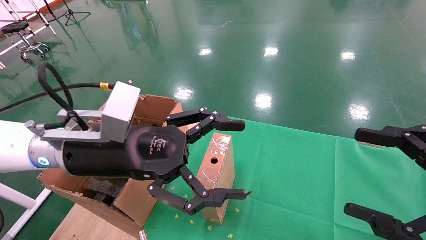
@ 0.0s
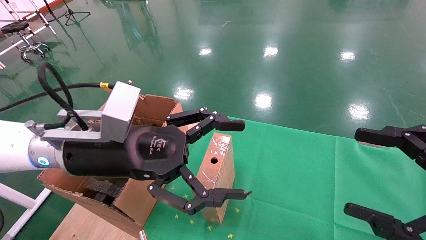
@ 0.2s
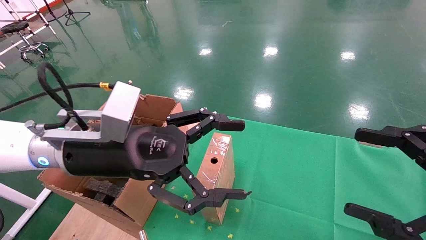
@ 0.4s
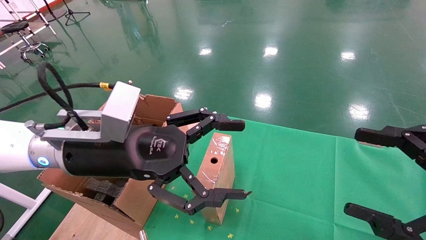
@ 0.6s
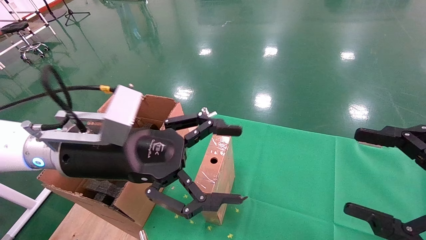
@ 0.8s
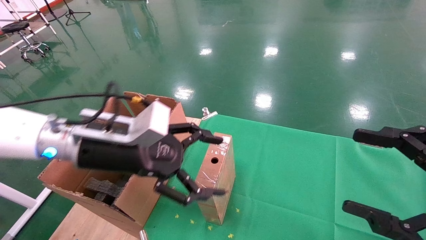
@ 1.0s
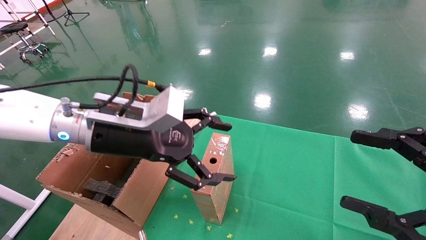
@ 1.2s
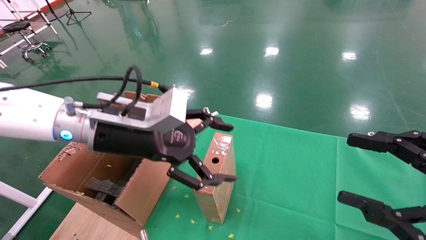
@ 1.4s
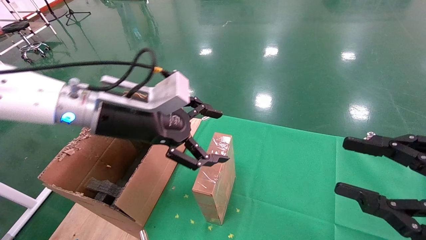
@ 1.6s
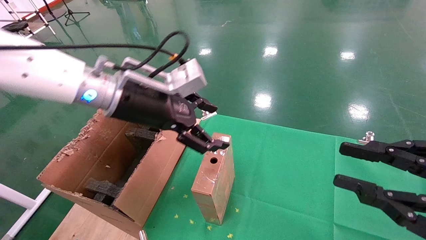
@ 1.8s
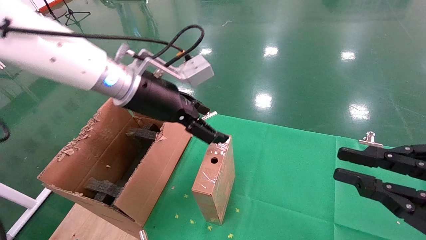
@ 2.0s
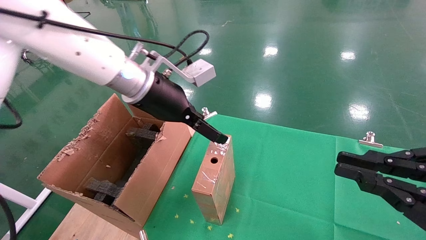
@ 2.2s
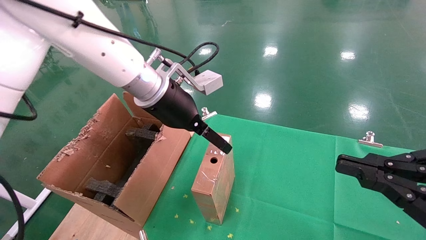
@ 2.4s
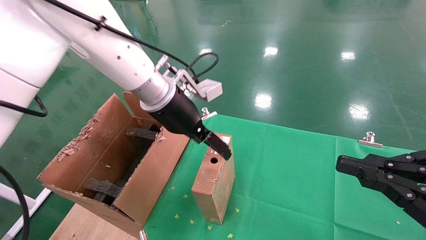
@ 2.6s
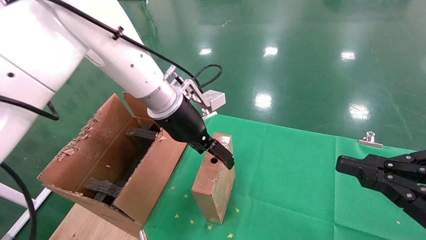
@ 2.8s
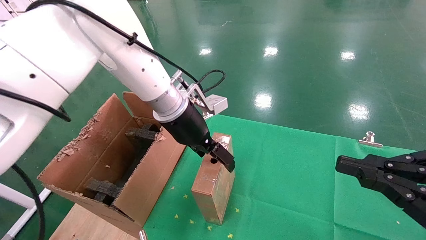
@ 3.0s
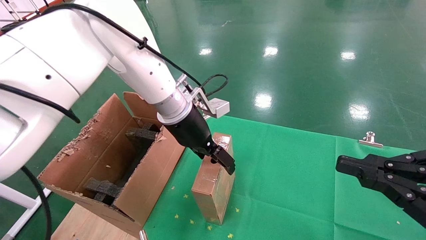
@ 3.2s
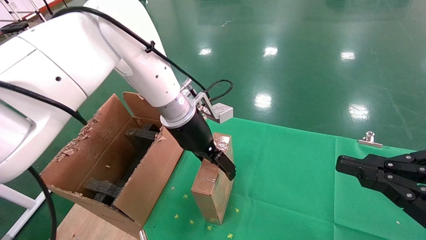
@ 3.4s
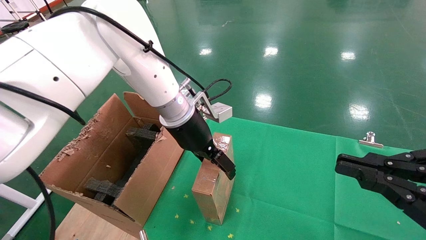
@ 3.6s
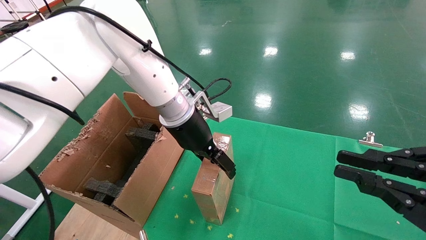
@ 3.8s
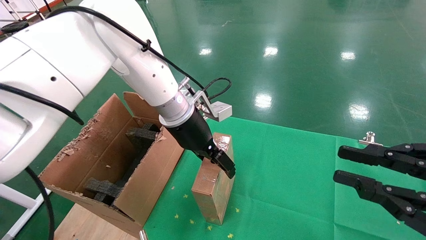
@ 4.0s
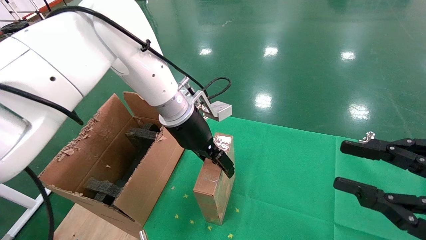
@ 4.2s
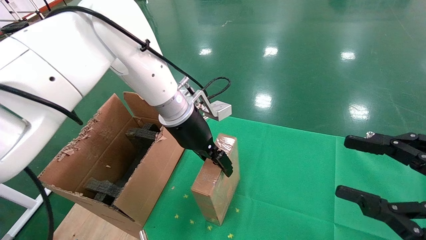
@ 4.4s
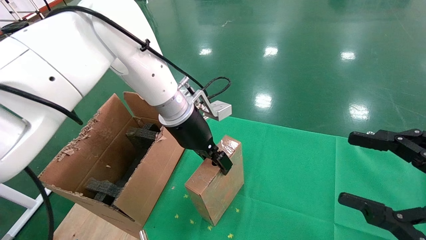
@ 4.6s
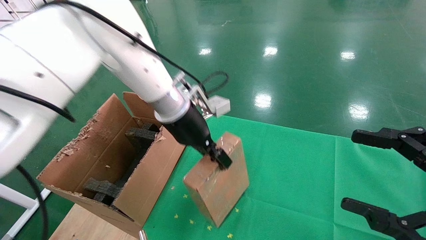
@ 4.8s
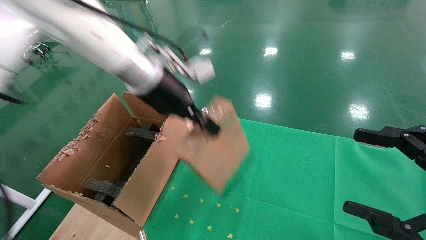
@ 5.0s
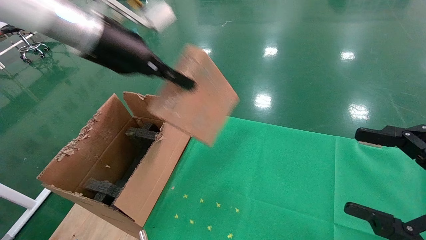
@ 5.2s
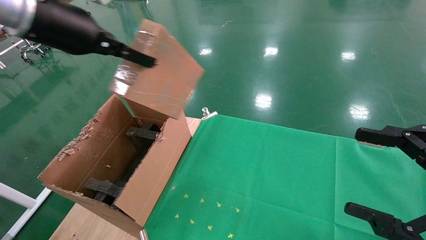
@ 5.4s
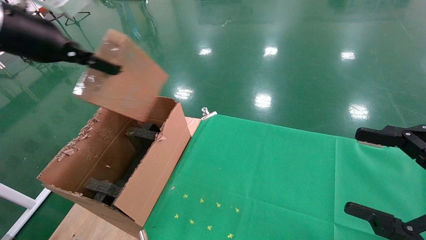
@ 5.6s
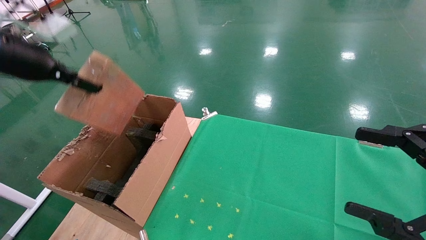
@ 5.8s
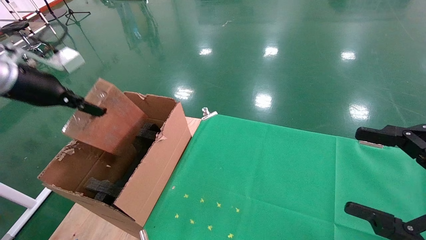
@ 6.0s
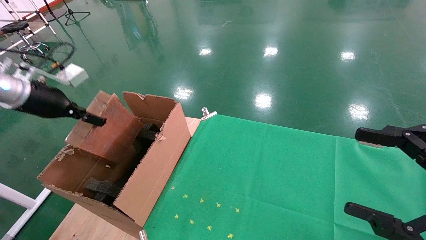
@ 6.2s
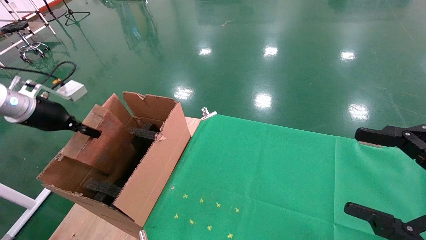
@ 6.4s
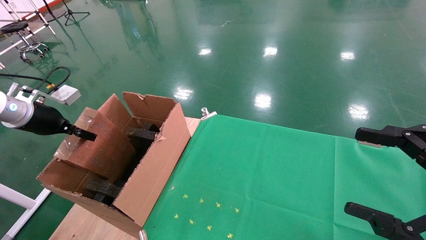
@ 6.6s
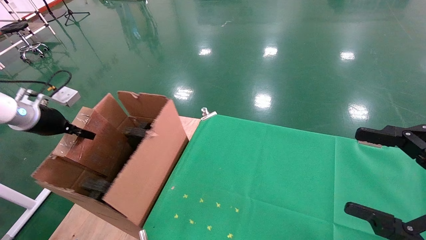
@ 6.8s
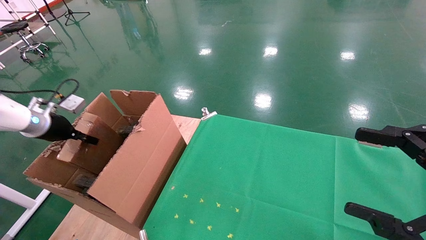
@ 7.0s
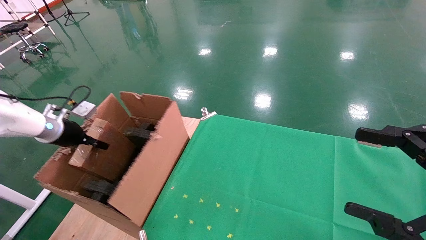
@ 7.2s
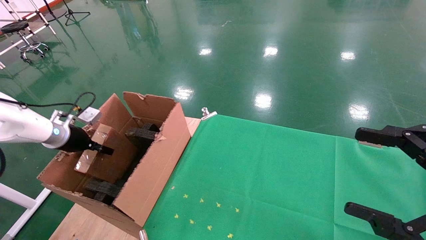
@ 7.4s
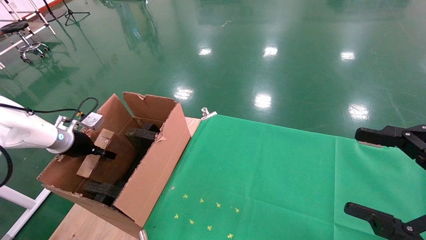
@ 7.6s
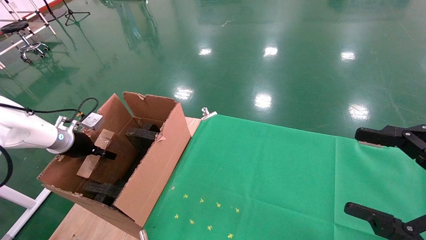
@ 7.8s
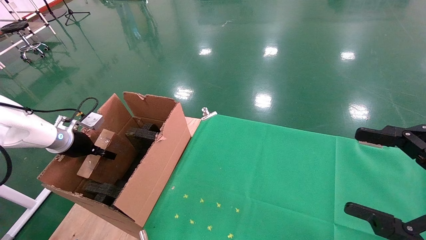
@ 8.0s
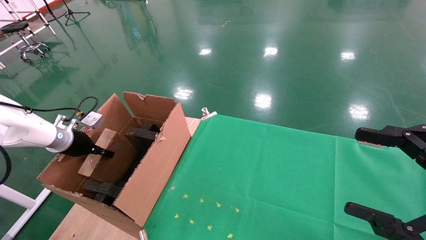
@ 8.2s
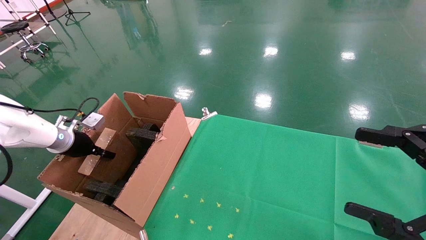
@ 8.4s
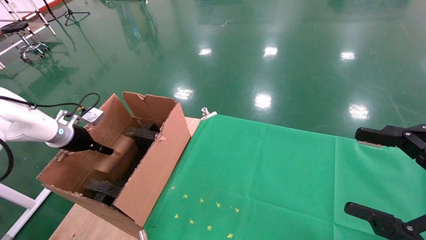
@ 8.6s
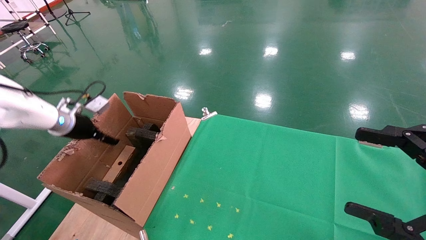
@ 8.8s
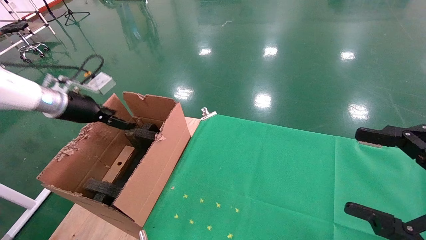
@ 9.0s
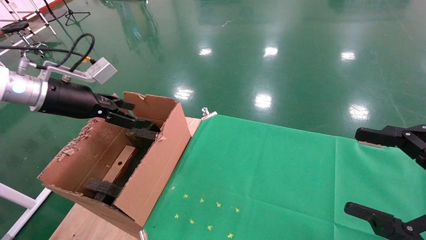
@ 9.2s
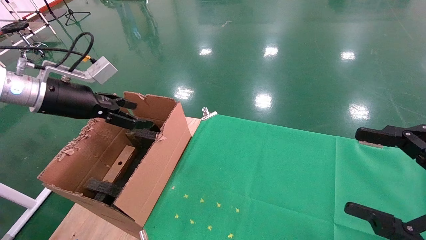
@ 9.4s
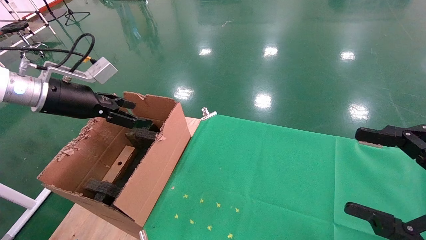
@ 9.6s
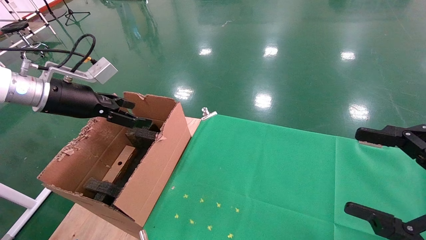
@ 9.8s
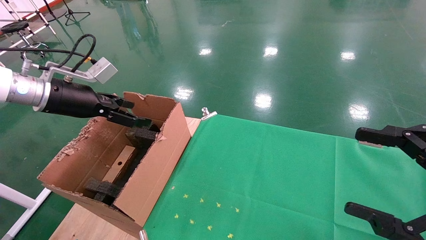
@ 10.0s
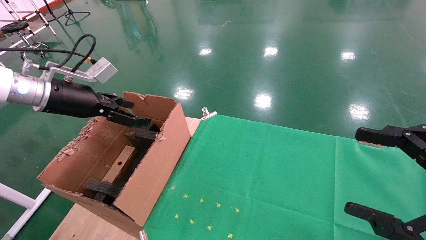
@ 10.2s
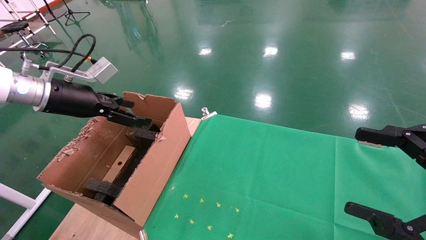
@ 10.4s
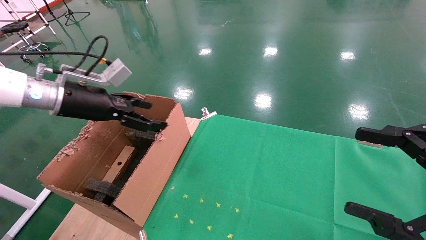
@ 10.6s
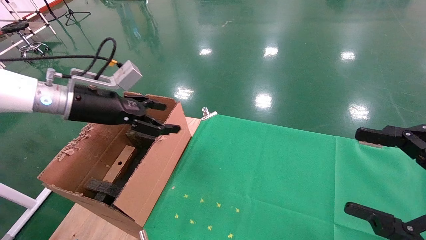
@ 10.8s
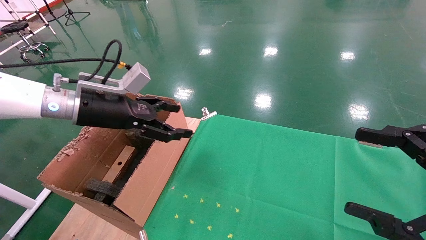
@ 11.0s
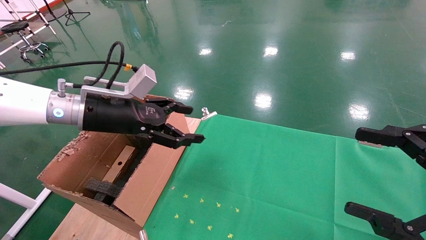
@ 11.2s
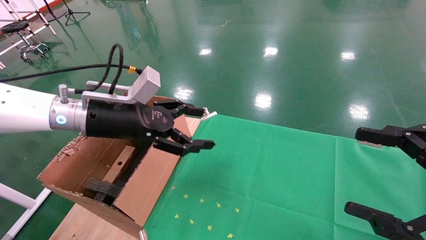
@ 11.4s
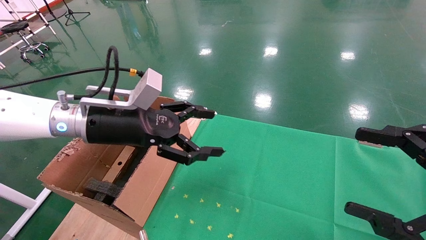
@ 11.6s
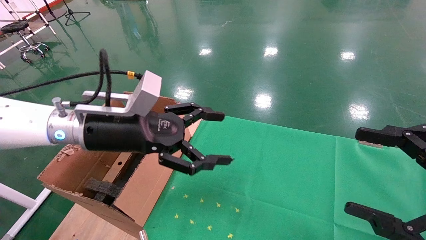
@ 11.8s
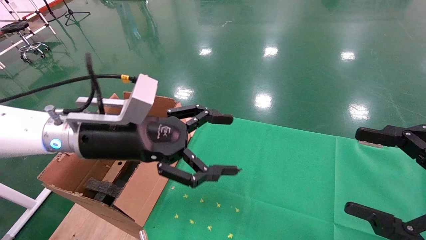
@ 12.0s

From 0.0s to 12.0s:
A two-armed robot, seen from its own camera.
Task of the whole recording: using a robotic arm to pick up a cardboard box and palace it the carton.
Step, from 1.2s to 4.6s: Pick up the mouse and the power cord paper box.
Step, from 4.8s to 8.4s: Place the mouse and the power cord paper box into the container.
From 0.0s to 1.6s: The left gripper shifts about 5 cm forward, while the right gripper closes up.
From 1.6s to 3.0s: The left gripper shifts approximately 10 cm forward and to the right. The right gripper closes up.
From 3.0s to 4.4s: The right gripper opens its fingers; the left gripper closes its fingers.
From 4.4s to 6.0s: The right gripper opens up, while the left gripper is displaced to the left by some 30 cm, and closes up.
From 6.0s to 7.6s: The left gripper travels downward and forward by about 20 cm.
From 7.6s to 9.0s: The left gripper is displaced upward by about 10 cm, and opens its fingers.
From 9.0s to 10.4s: The left gripper travels to the right and backward by roughly 5 cm.
From 10.4s to 12.0s: The left gripper shifts roughly 20 cm to the right and backward.

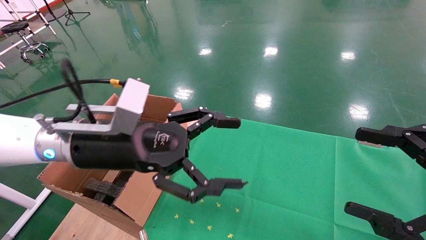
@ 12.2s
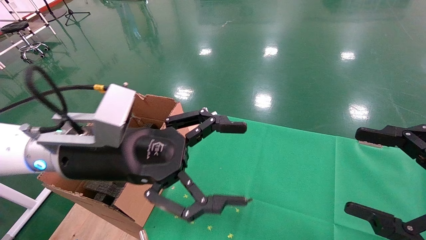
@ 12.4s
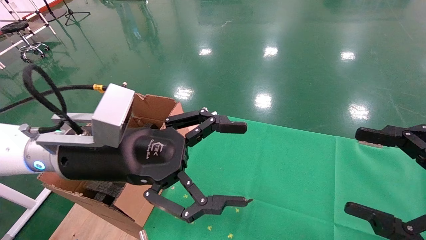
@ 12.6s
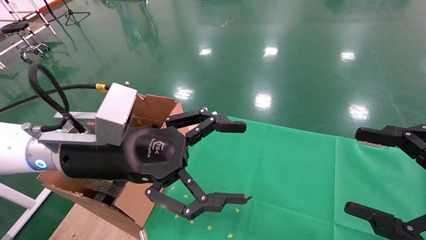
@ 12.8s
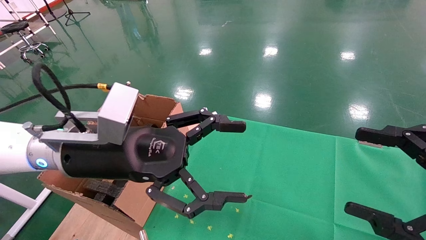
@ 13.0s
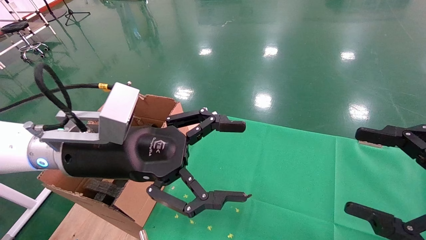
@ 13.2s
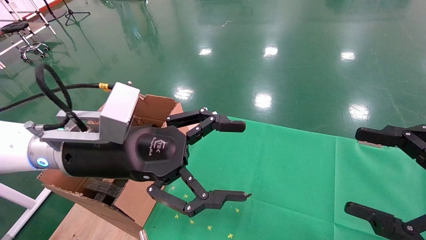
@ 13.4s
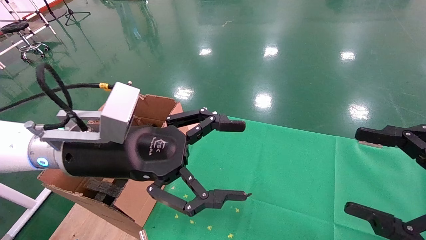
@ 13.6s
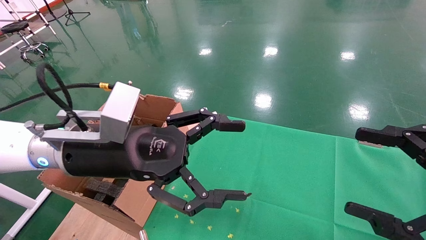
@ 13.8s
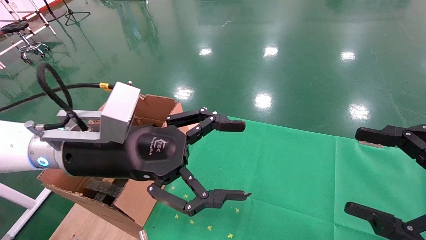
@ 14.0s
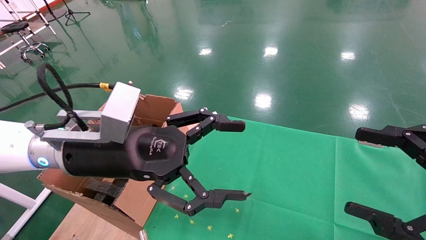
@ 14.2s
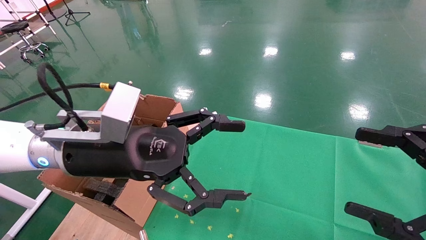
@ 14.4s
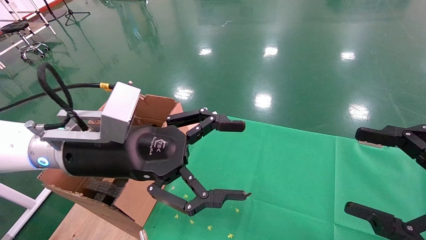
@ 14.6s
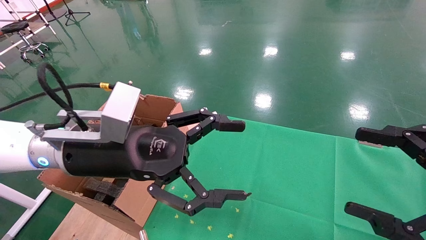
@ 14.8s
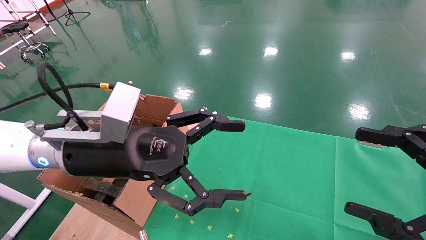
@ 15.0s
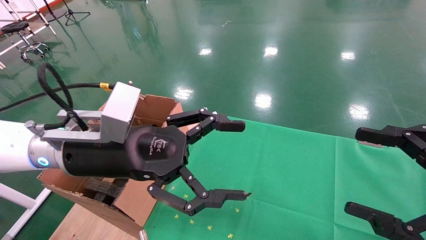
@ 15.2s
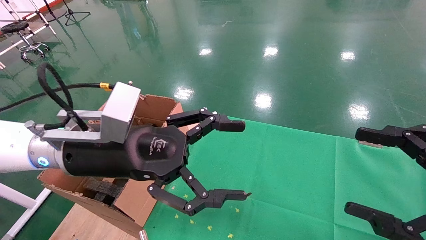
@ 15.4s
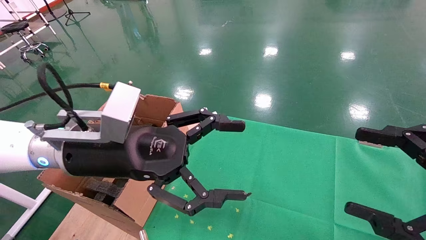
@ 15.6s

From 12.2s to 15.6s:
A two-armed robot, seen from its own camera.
Task of the whole recording: using a robotic arm to pick up a cardboard box and palace it the carton.
From 12.2s to 13.8s: The grippers move only a little.
From 13.8s to 15.6s: The two grippers keep their place.
